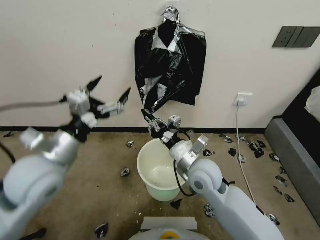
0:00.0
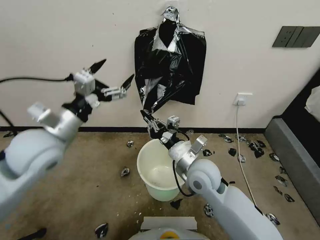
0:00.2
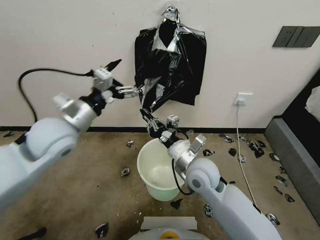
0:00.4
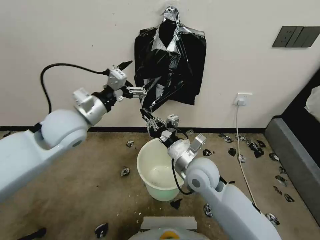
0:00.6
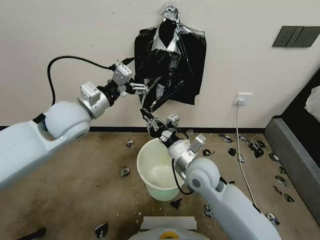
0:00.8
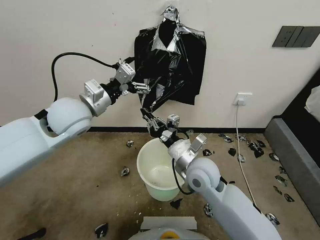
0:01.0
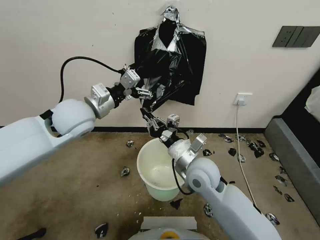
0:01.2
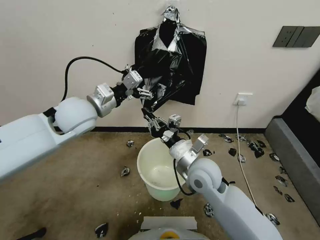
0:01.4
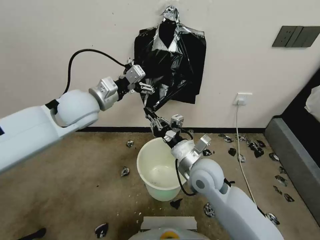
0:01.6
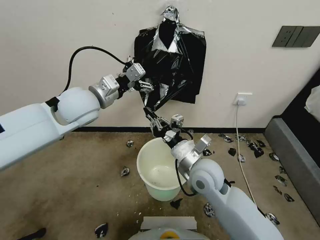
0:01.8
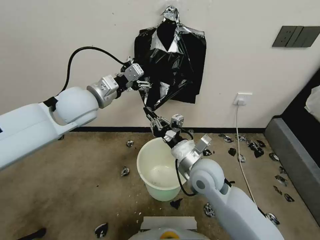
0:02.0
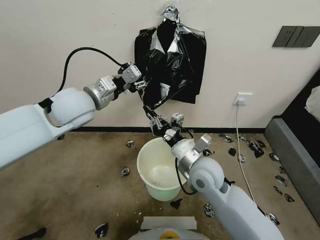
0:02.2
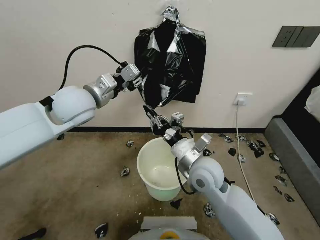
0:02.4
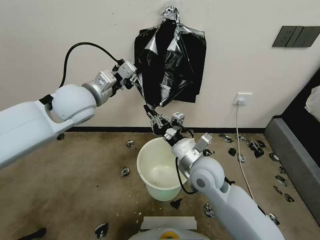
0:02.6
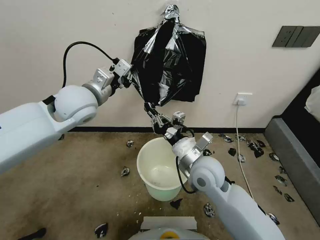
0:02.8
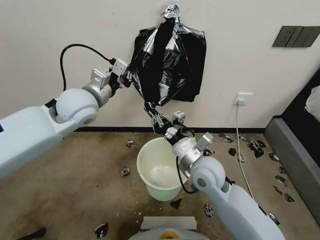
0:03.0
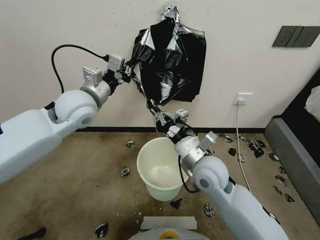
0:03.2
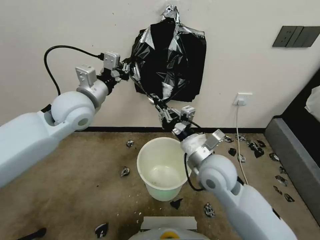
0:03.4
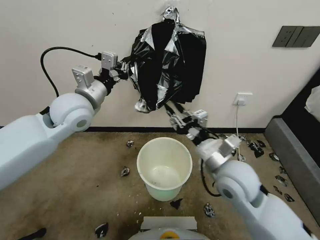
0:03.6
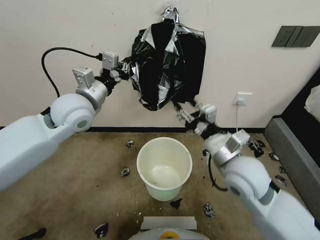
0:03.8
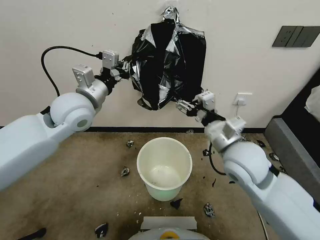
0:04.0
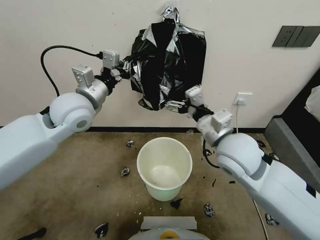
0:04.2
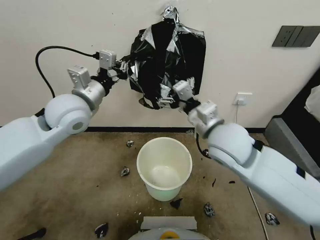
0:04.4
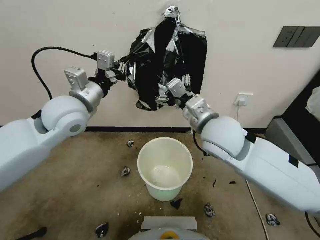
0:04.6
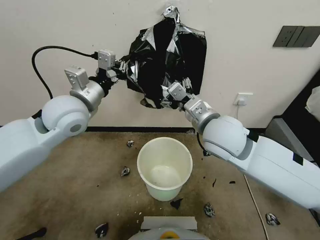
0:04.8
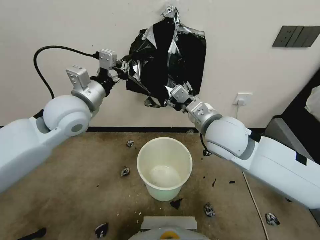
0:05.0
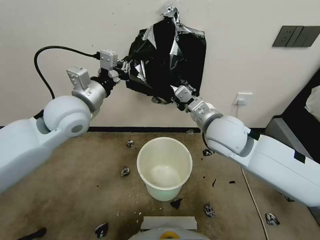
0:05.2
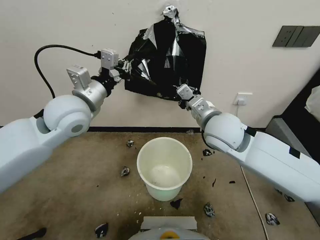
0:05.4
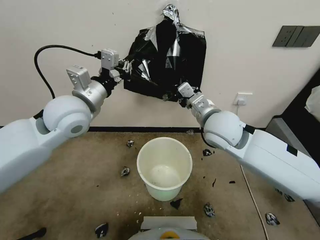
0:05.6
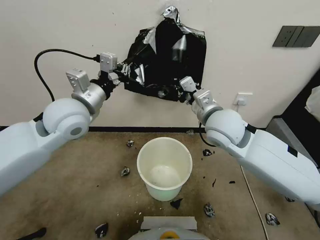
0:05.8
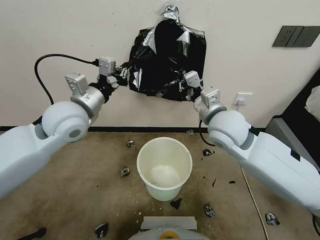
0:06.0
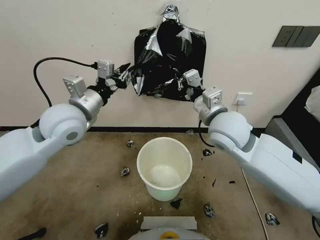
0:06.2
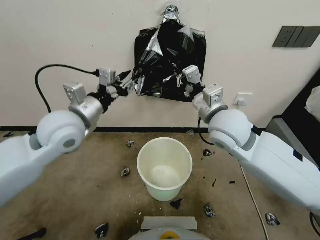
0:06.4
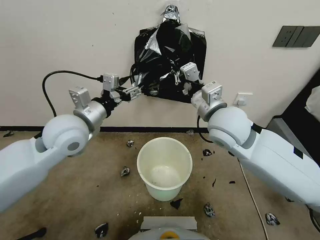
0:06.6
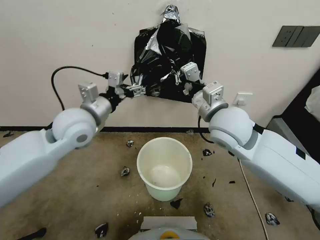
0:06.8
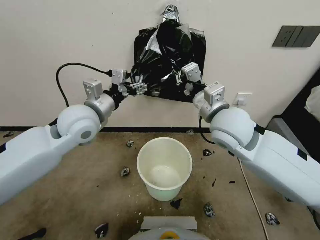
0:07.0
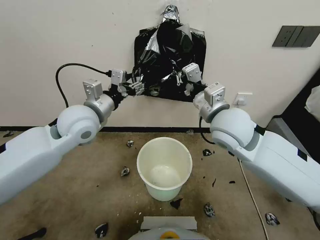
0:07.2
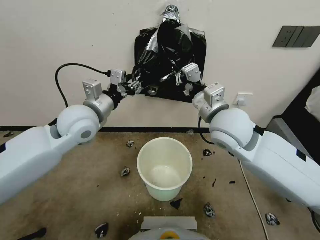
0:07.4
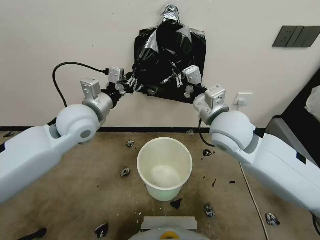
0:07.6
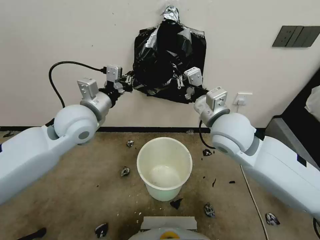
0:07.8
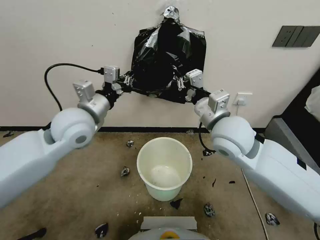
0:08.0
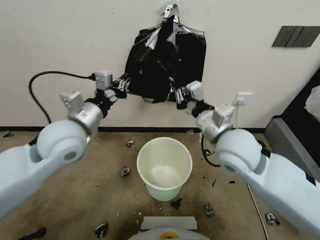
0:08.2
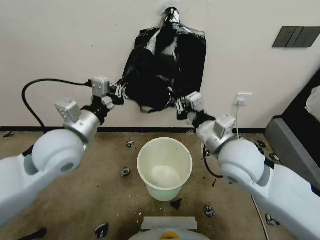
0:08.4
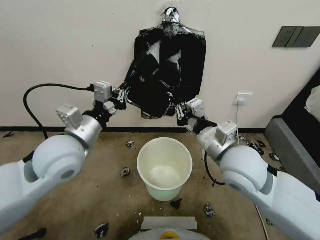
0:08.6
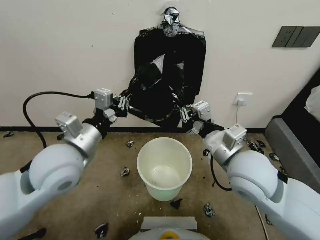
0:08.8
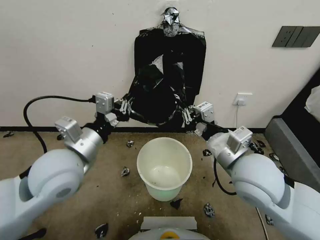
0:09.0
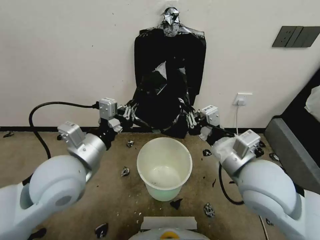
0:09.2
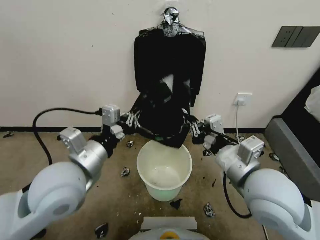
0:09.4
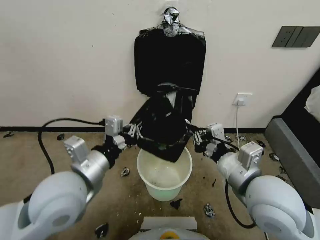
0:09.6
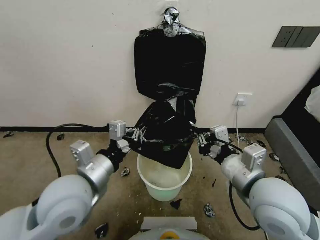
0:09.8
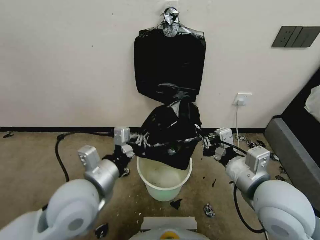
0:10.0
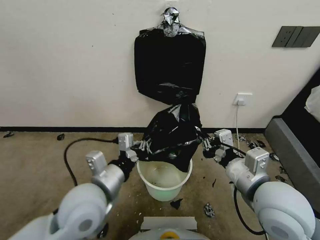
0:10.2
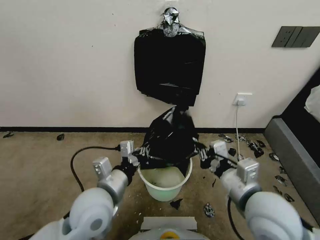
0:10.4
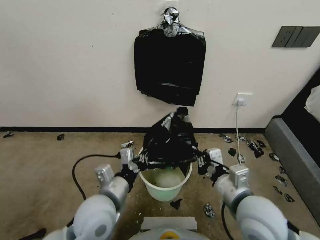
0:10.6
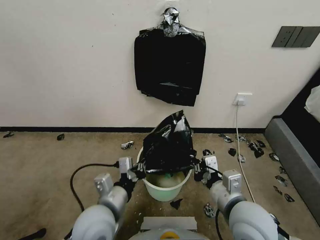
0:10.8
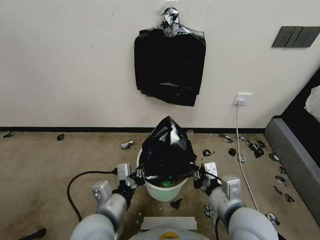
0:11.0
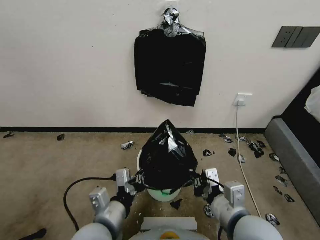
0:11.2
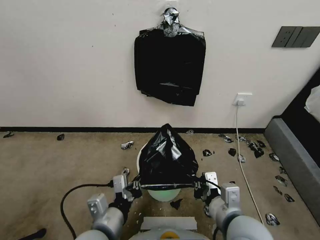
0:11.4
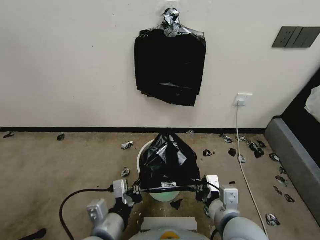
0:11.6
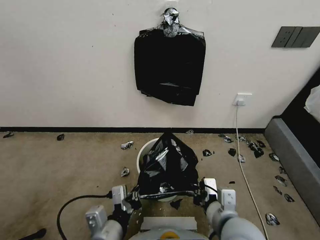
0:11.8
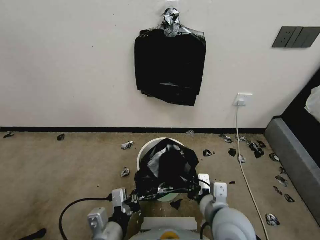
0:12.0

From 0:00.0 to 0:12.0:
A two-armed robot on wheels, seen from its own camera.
Task of the whole recording: Place a trash bag onto the trash bin.
From 0:00.0 to 0:01.6: The left gripper goes roughly 15 cm forward.
From 0:01.6 to 0:03.0: The left gripper closes.
From 0:03.0 to 0:04.4: The right gripper travels upward by roughly 15 cm, and opens up.
From 0:04.4 to 0:06.0: The right gripper closes up.
From 0:06.0 to 0:07.6: The left gripper opens, then closes again.
From 0:07.6 to 0:09.0: The grippers both shift backward by approximately 10 cm.
From 0:09.0 to 0:10.4: The left gripper goes some 10 cm downward and to the right. The right gripper heads backward and downward, covering approximately 10 cm.
From 0:10.4 to 0:12.0: The right gripper goes about 10 cm downward and to the left. Meanwhile the left gripper travels backward and downward by some 10 cm.

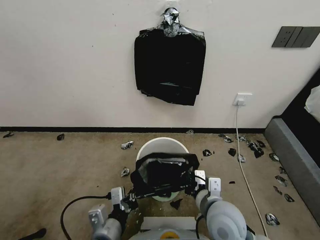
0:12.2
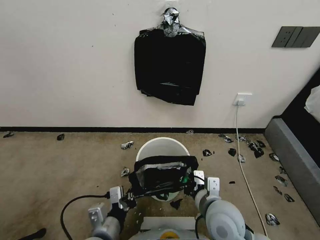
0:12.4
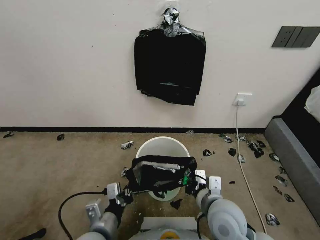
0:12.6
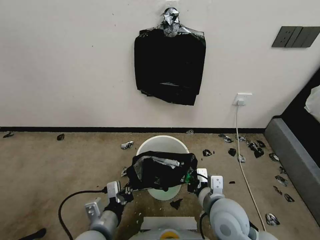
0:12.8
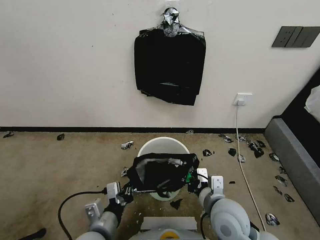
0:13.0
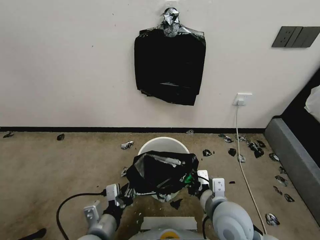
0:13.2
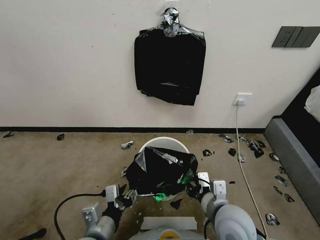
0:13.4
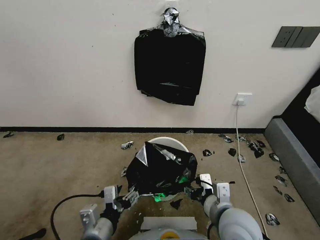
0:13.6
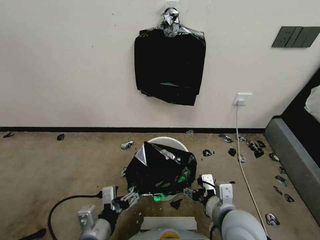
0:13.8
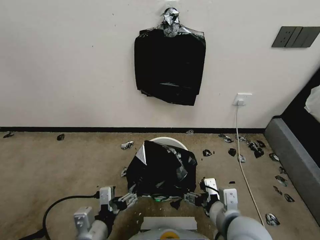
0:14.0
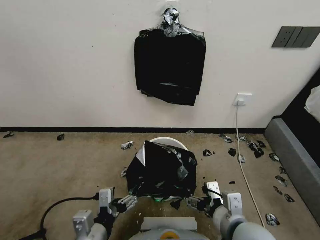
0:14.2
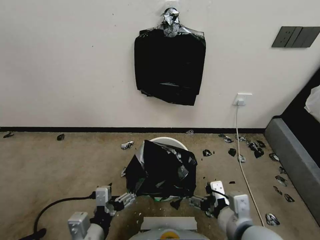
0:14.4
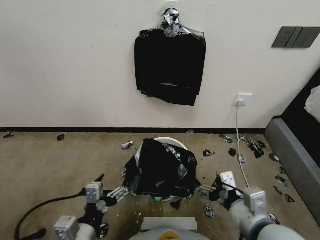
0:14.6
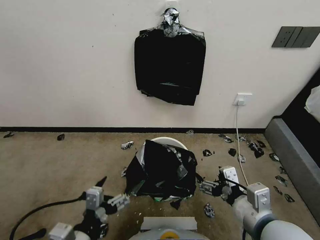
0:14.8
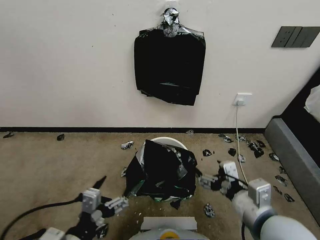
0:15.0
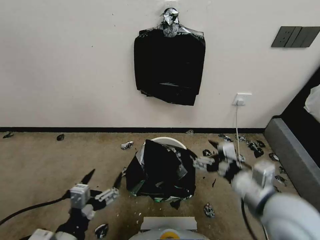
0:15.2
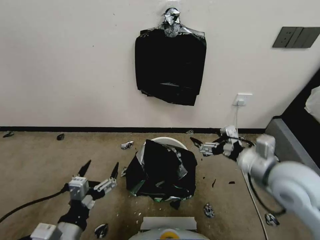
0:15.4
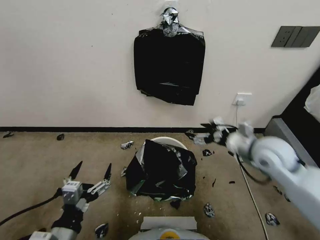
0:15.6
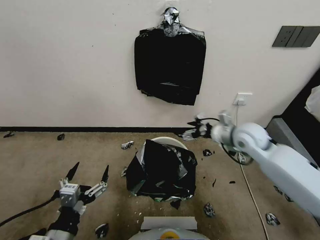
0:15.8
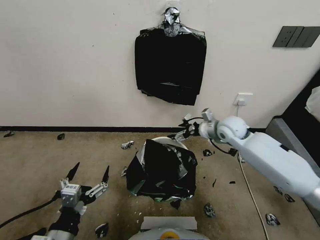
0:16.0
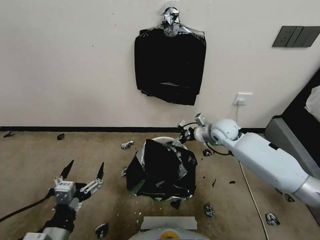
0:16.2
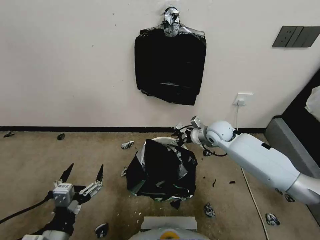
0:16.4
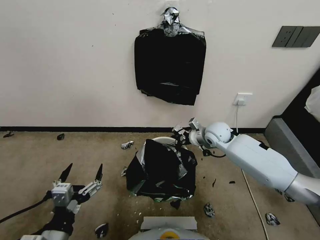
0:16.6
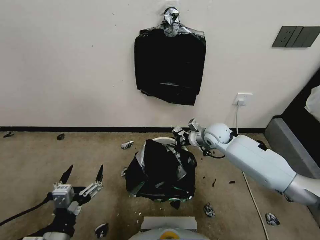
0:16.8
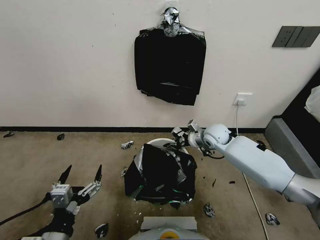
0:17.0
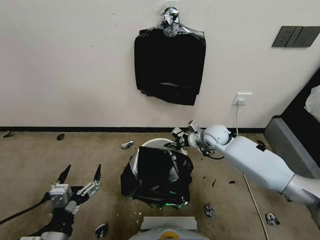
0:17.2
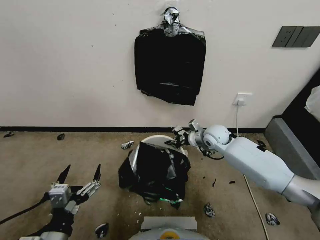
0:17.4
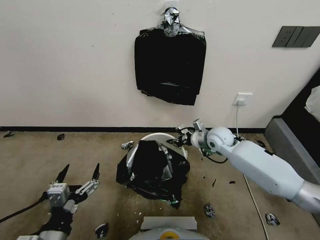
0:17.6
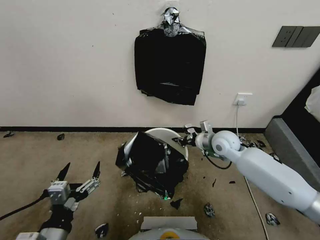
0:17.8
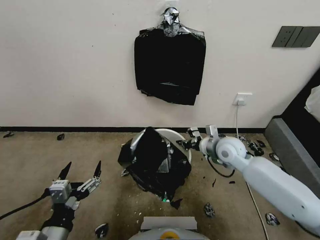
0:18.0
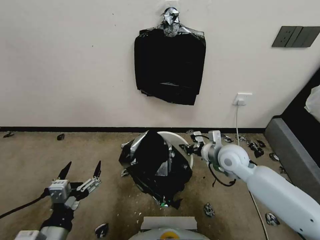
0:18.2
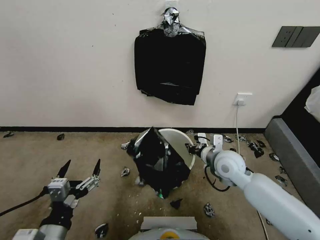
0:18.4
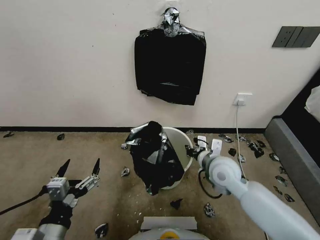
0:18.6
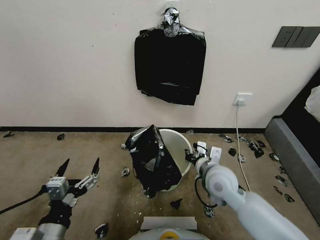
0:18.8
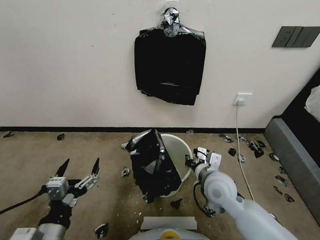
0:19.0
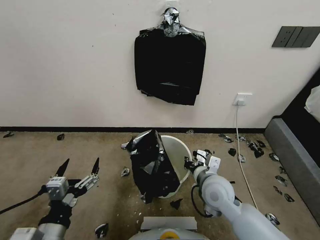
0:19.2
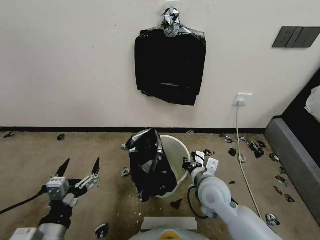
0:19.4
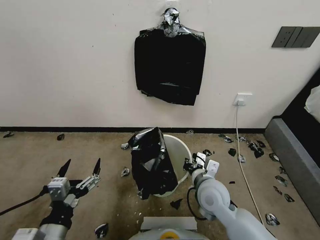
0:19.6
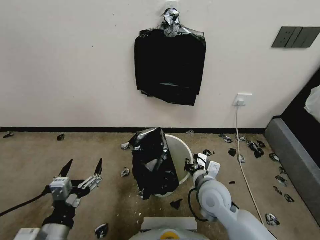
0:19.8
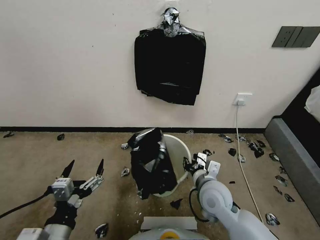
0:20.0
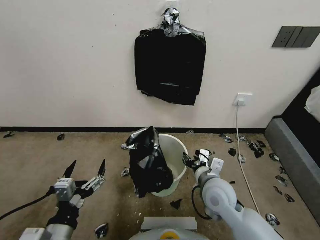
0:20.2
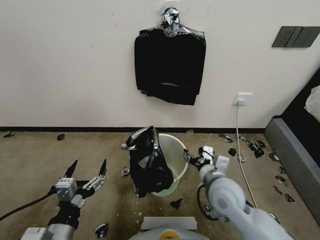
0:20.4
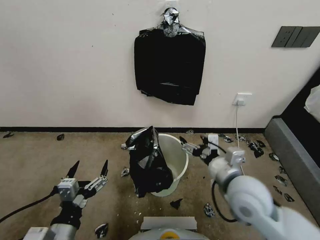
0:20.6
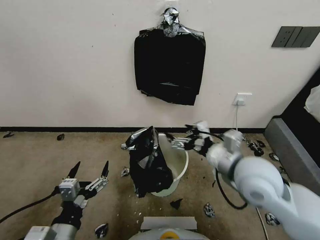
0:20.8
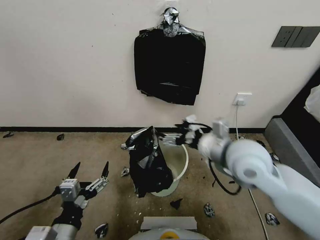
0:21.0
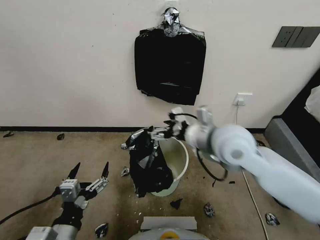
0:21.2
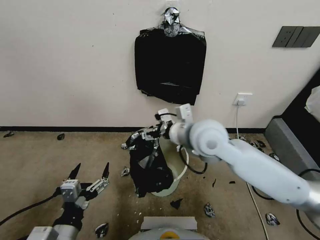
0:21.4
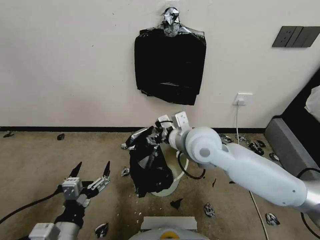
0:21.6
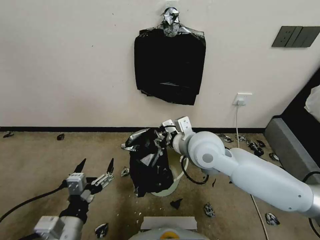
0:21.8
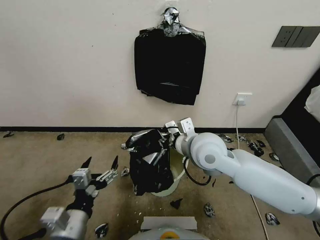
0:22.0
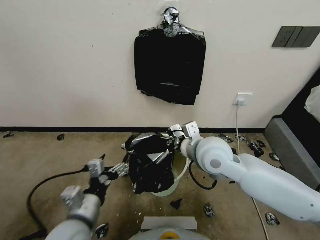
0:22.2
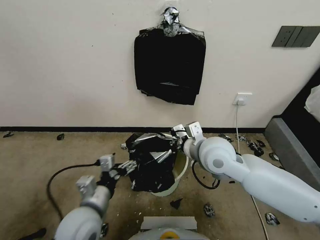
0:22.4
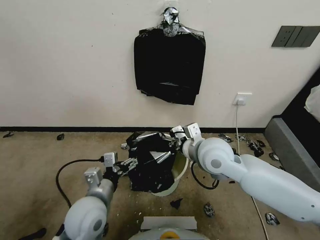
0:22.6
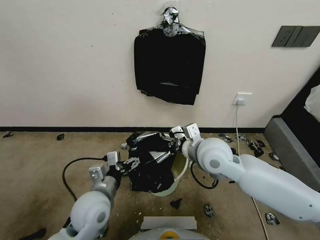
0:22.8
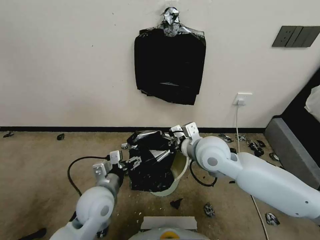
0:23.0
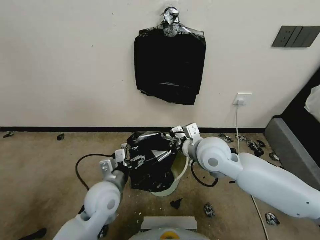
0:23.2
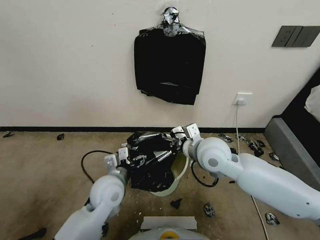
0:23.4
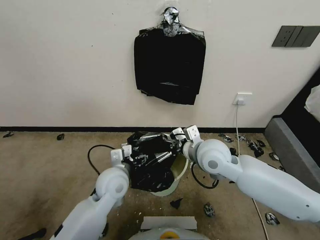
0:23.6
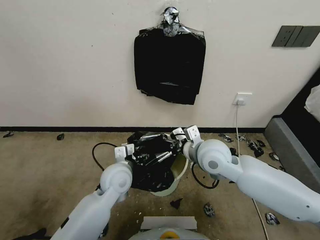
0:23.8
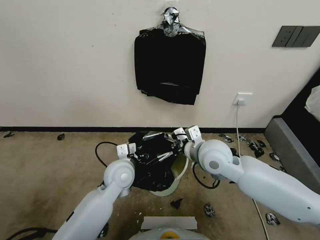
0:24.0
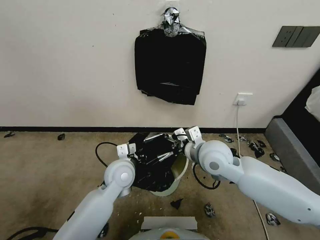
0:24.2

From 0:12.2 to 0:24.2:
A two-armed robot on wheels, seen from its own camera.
Task of the whole recording: Place a trash bag onto the trash bin.
From 0:12.2 to 0:13.8: The right gripper opens up; the left gripper opens.
From 0:13.8 to 0:15.2: The left gripper shifts about 5 cm upward. The right gripper is displaced upward and to the right by approximately 10 cm.
From 0:15.2 to 0:16.6: The right gripper shifts roughly 30 cm forward and downward, and closes up.
From 0:16.6 to 0:18.2: The right gripper shifts roughly 10 cm backward, and closes its fingers.
From 0:18.2 to 0:19.8: The right gripper shifts approximately 15 cm backward and to the left.
From 0:19.8 to 0:21.2: The right gripper moves upward, some 20 cm, and opens up.
From 0:21.2 to 0:22.6: The right gripper shifts approximately 5 cm downward, and closes its fingers. The left gripper moves forward and to the right, approximately 15 cm.
From 0:22.6 to 0:24.2: The left gripper moves forward and to the right, some 15 cm, and closes its fingers.
